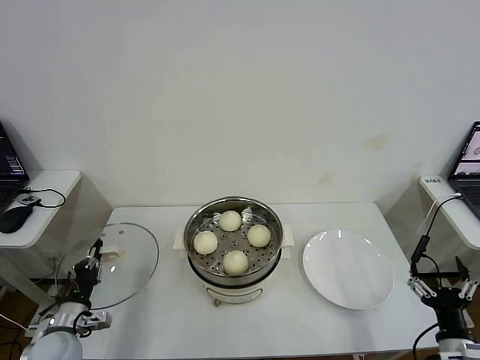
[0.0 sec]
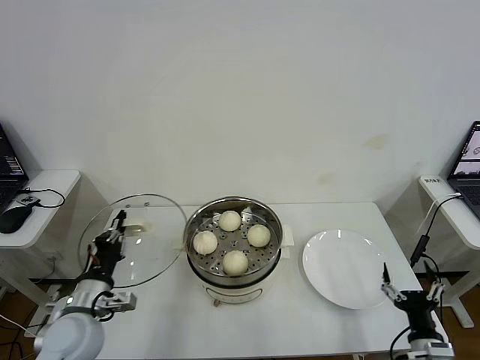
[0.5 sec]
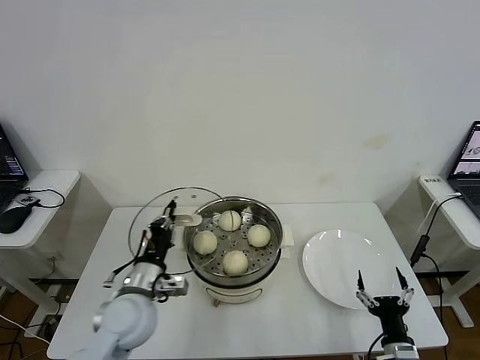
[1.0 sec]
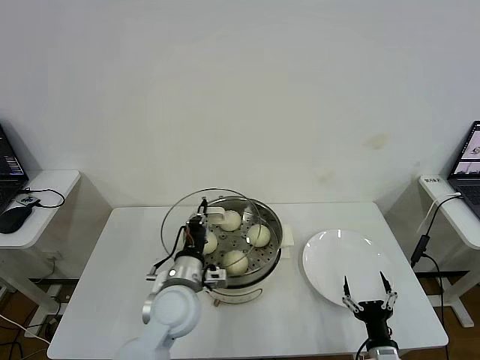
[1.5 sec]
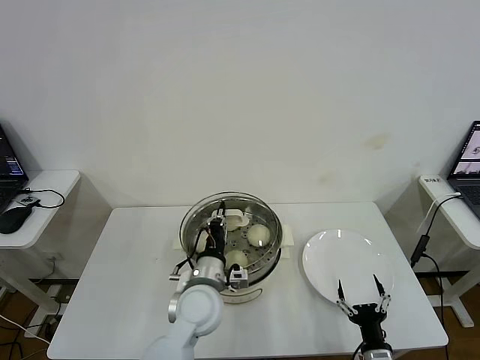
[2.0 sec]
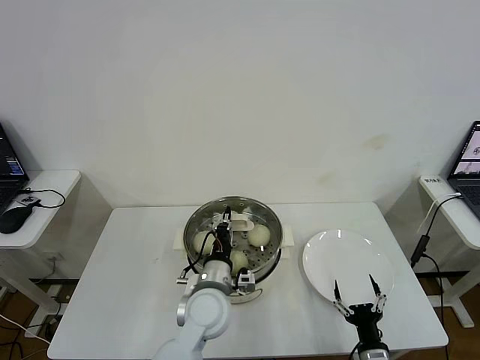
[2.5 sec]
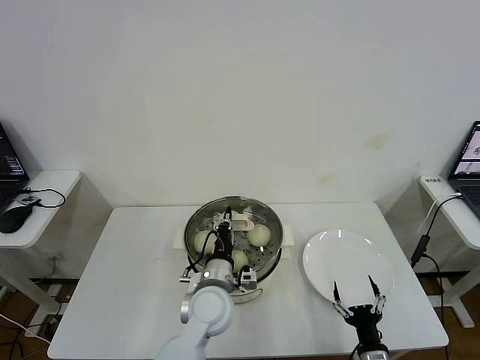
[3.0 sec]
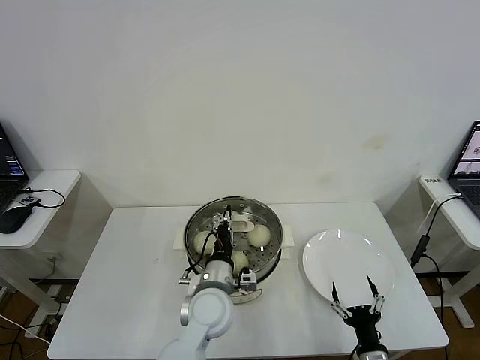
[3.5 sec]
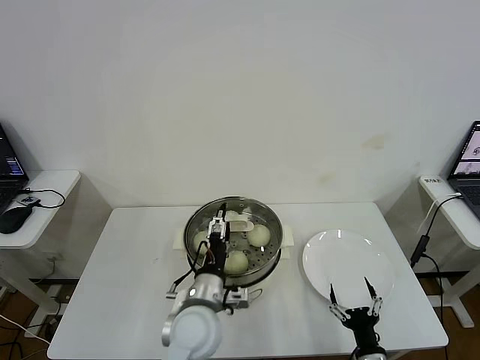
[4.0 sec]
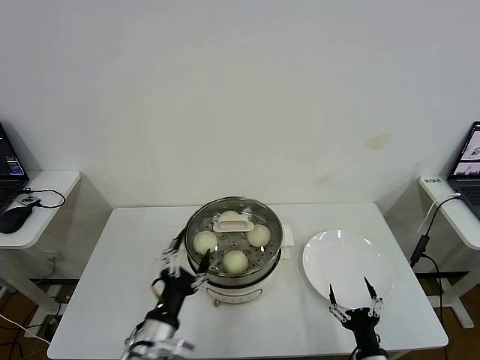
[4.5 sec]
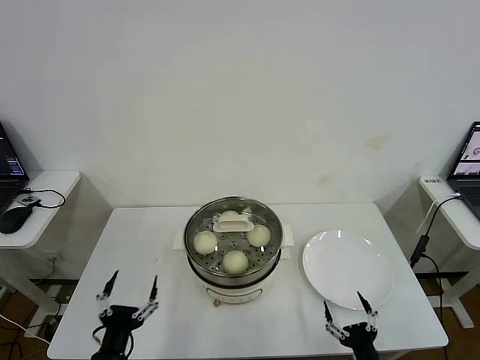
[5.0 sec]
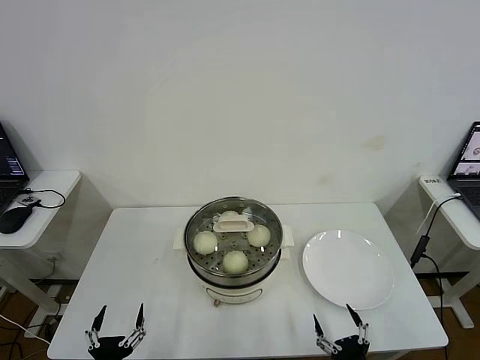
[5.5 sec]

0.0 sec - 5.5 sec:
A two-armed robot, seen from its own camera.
Step, 0.0 sec - 3.5 sec: Place the pot lid on the steamer with left gripper.
0.0 sec - 2.0 sec: The left gripper moves to the right, about 30 cm. Meanwhile the right gripper goes approximately 15 cm to the left and downward.
2.0 sec - 3.5 sec: The grippers move only a little.
3.5 sec - 5.5 sec: The right gripper shifts approximately 5 cm backward. Meanwhile the left gripper heads backward and to the left, covering roughly 30 cm, and opens.
